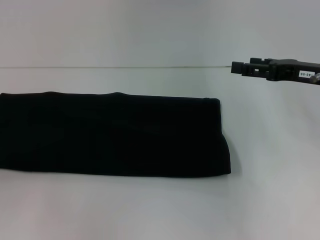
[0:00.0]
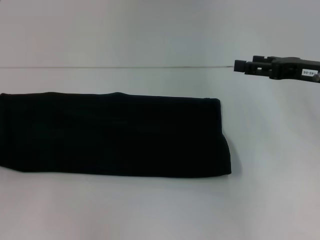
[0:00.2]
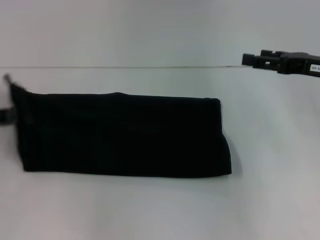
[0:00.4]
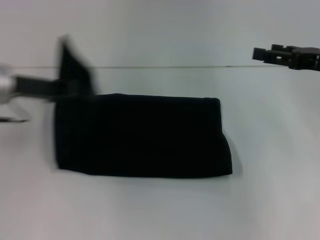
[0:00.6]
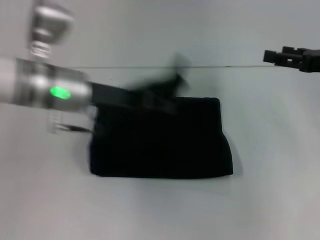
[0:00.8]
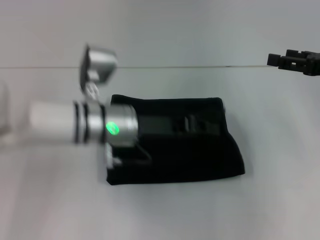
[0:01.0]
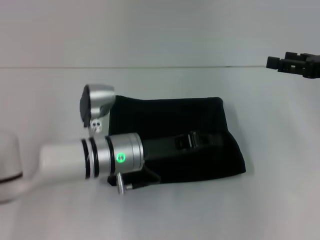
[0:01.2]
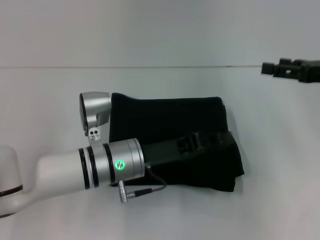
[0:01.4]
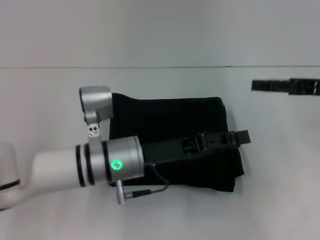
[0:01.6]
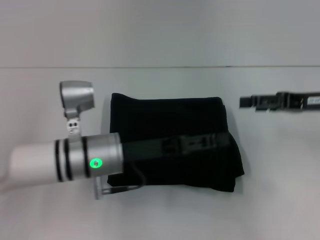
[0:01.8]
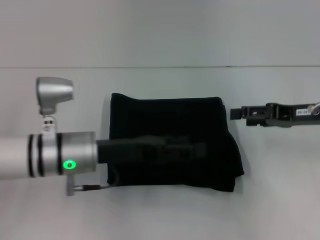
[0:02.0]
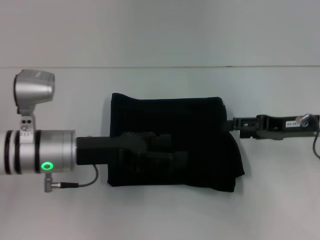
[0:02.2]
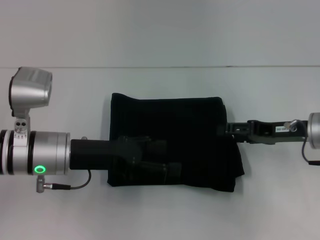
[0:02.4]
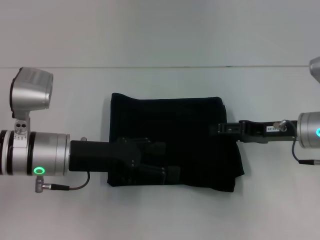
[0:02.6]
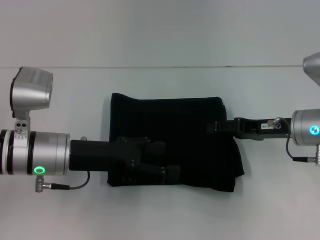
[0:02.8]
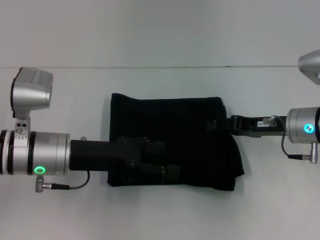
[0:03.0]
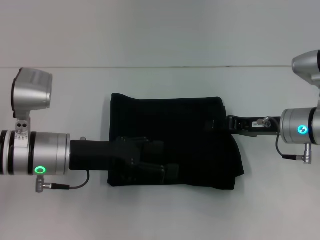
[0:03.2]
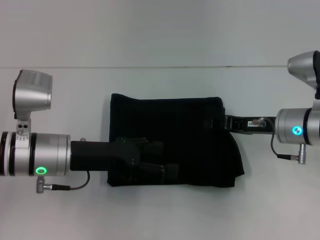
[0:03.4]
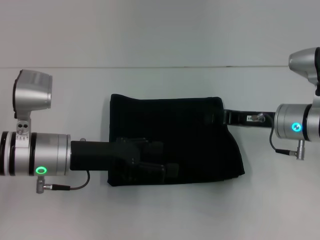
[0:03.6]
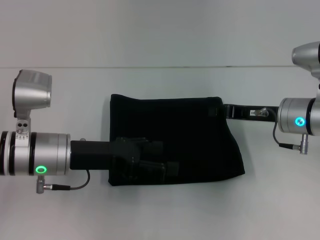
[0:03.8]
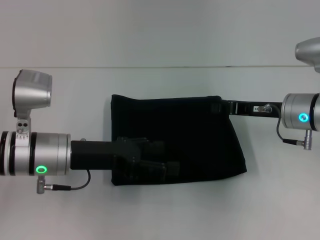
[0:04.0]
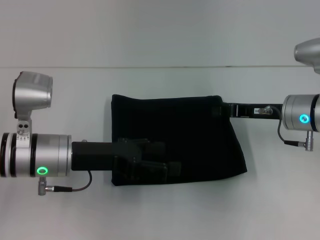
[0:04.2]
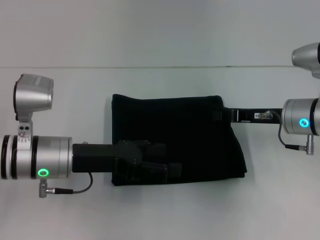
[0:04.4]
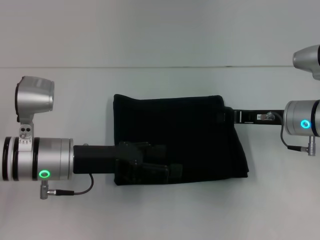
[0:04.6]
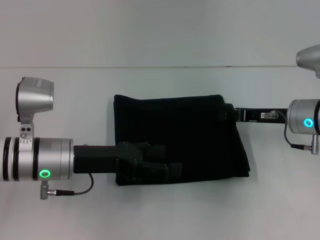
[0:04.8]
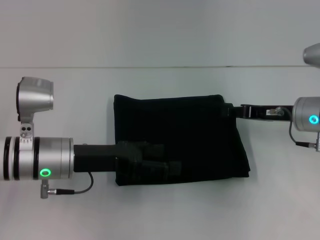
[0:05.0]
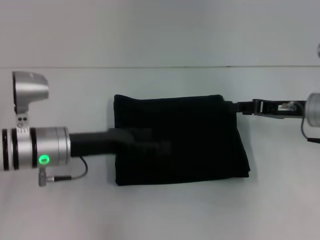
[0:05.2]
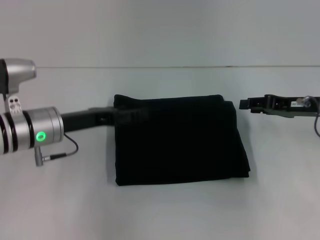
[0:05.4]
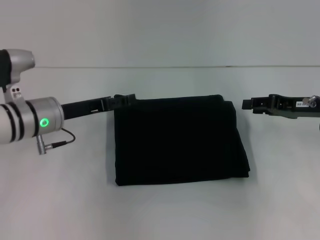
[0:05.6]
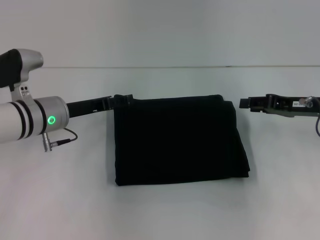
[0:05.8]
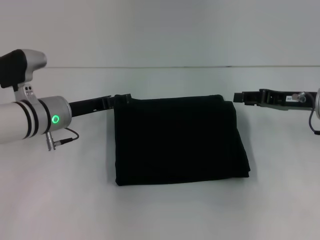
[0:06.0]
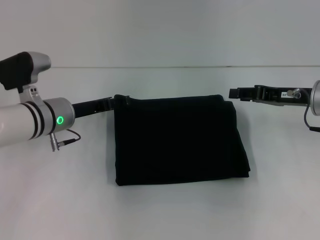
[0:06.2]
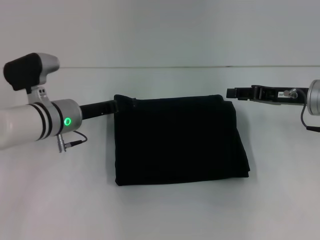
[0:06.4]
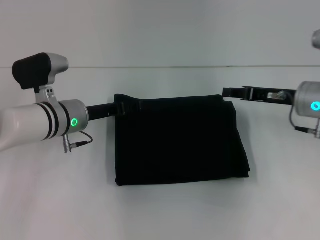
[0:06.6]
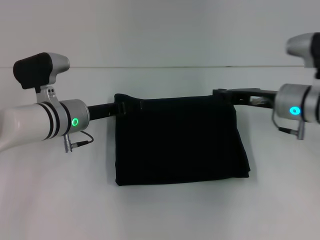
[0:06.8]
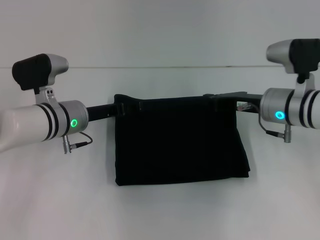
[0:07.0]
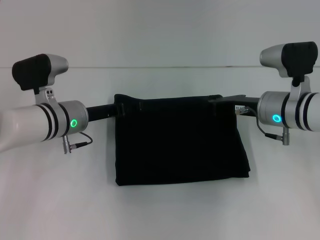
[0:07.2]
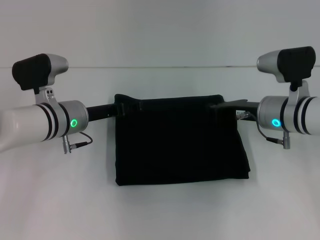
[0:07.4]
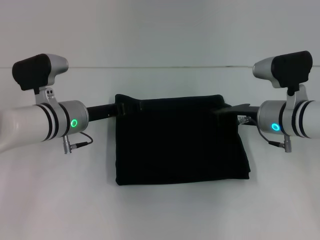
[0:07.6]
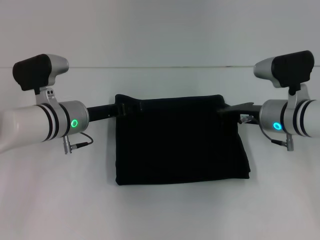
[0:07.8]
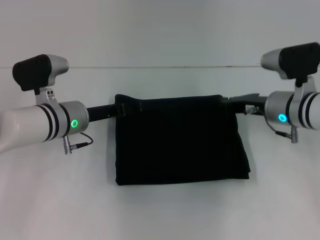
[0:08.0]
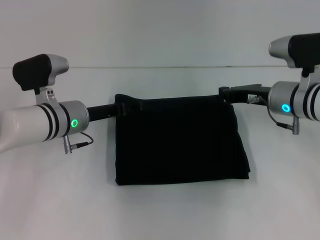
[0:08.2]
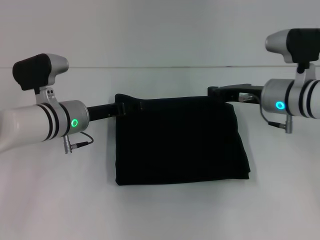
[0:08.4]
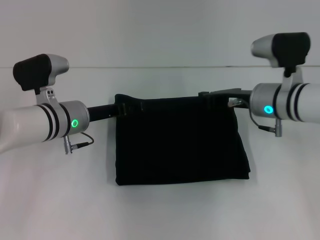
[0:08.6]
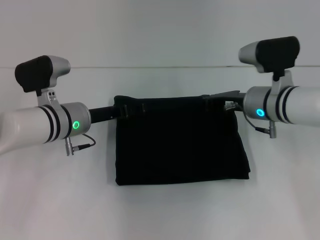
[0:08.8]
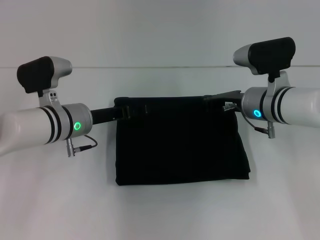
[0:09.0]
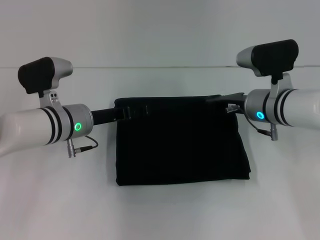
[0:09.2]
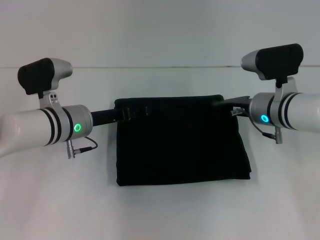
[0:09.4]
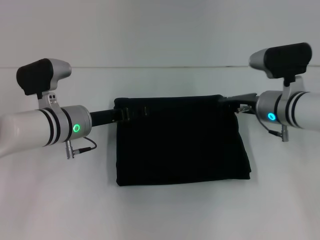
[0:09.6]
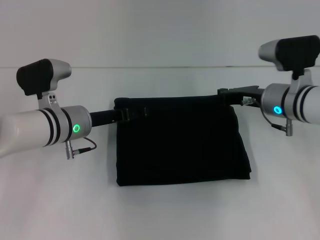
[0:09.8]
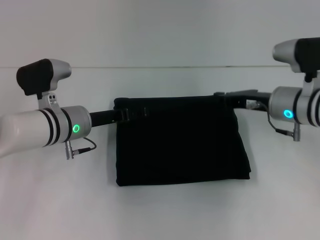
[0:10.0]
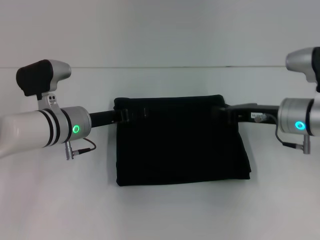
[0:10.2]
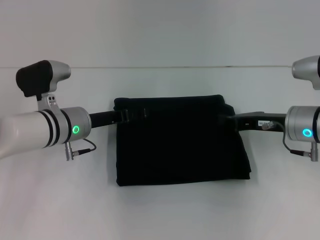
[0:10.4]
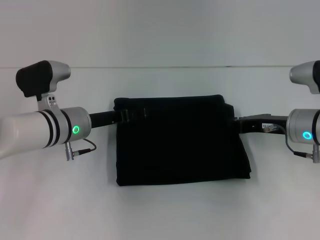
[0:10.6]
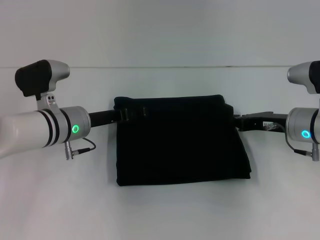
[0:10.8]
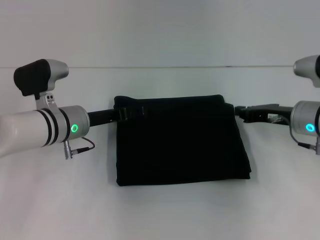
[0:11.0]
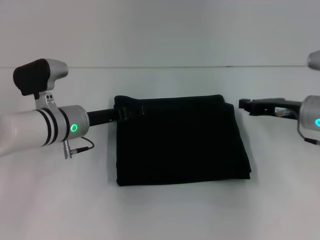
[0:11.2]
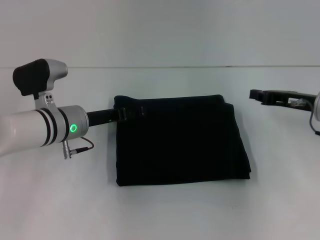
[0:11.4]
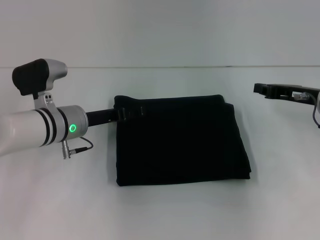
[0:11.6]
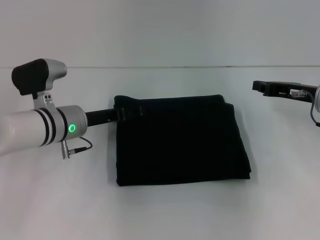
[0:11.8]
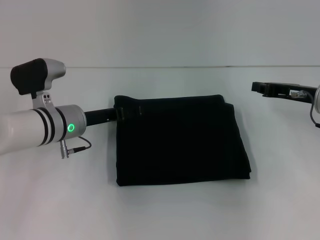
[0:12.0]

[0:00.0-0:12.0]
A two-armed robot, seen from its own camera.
0:00.0 to 0:01.6: The left gripper travels to the right by roughly 30 cm.
0:01.6 to 0:03.0: The left gripper moves to the left, approximately 10 cm, and opens its fingers. The right gripper is displaced to the left and downward by roughly 10 cm.
0:03.0 to 0:04.4: The right gripper closes its fingers.
0:04.4 to 0:06.0: The right gripper ends up roughly 5 cm from where it was, and opens its fingers; the left gripper shifts some 10 cm forward.
0:06.0 to 0:07.6: The right gripper heads to the left, covering approximately 10 cm, and closes up.
0:07.6 to 0:09.0: There are only small adjustments of the grippers.
0:09.0 to 0:10.4: The right gripper shifts some 5 cm to the right.
0:10.4 to 0:12.0: The right gripper moves some 5 cm.

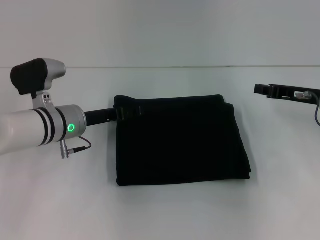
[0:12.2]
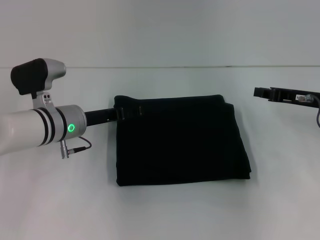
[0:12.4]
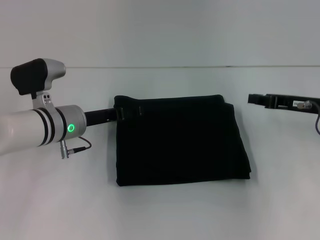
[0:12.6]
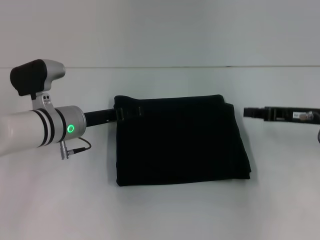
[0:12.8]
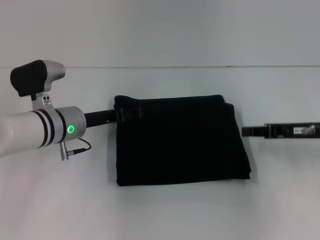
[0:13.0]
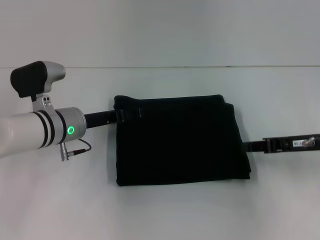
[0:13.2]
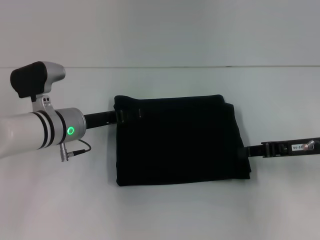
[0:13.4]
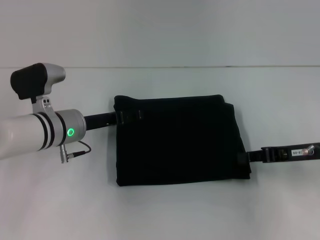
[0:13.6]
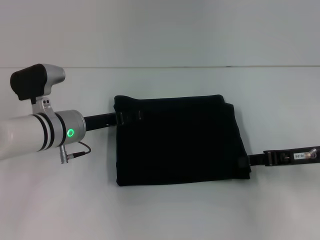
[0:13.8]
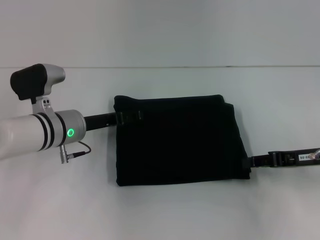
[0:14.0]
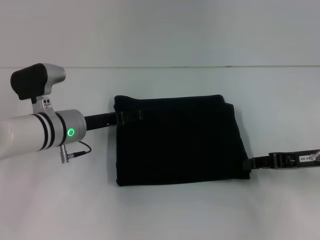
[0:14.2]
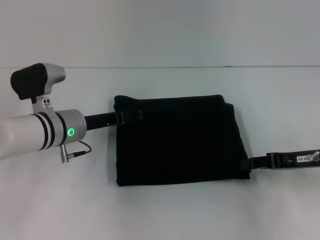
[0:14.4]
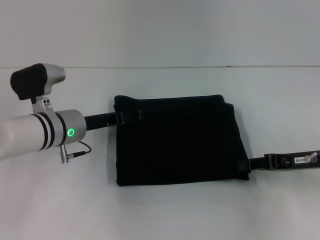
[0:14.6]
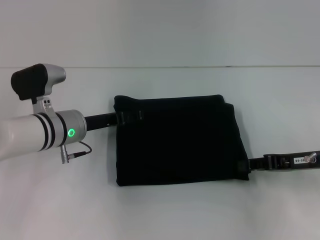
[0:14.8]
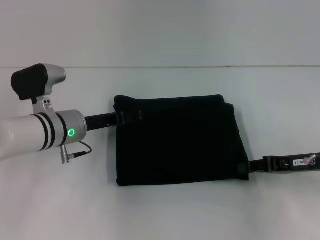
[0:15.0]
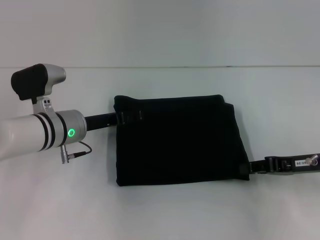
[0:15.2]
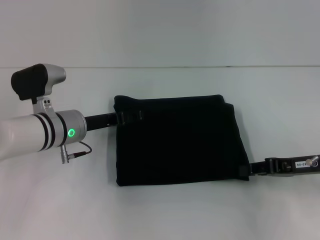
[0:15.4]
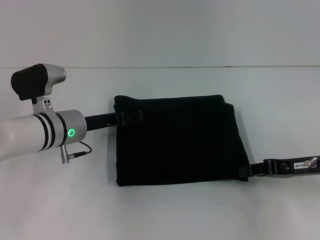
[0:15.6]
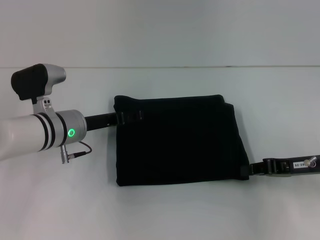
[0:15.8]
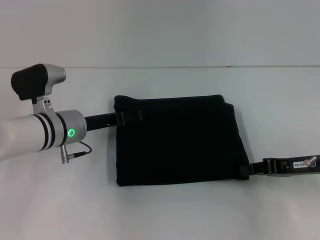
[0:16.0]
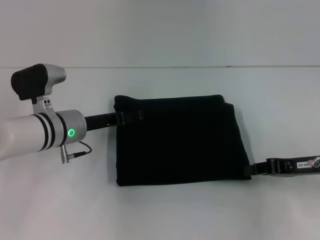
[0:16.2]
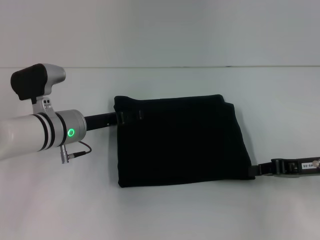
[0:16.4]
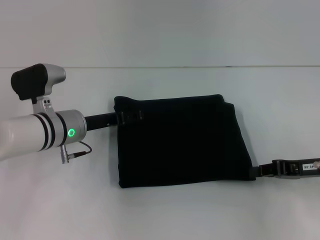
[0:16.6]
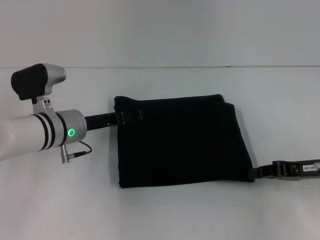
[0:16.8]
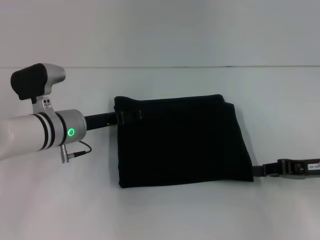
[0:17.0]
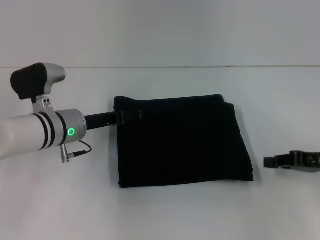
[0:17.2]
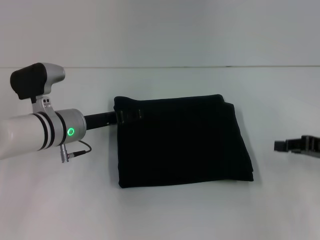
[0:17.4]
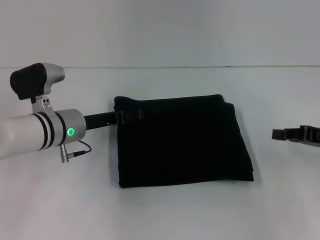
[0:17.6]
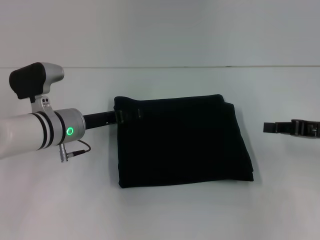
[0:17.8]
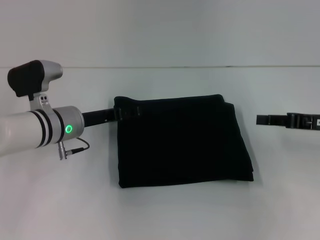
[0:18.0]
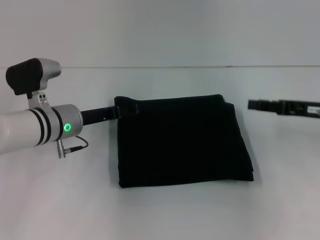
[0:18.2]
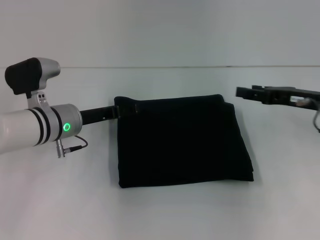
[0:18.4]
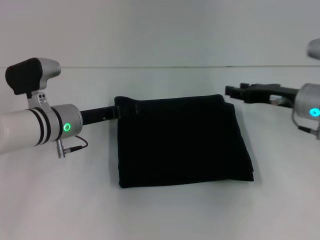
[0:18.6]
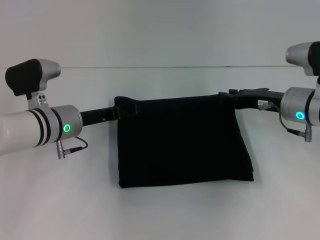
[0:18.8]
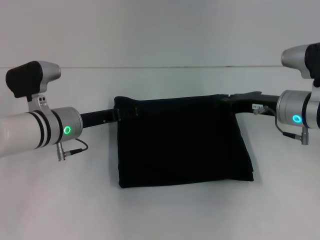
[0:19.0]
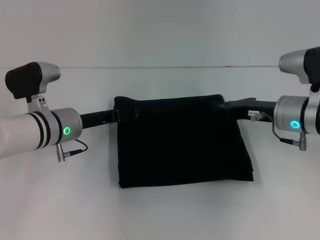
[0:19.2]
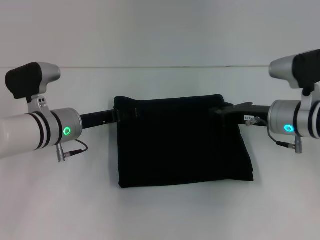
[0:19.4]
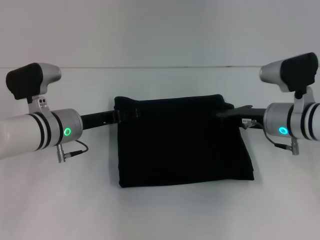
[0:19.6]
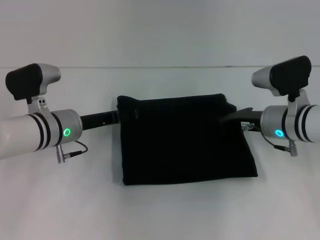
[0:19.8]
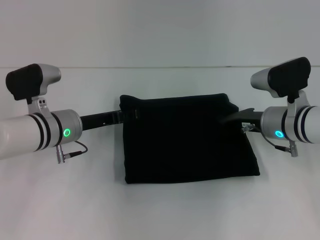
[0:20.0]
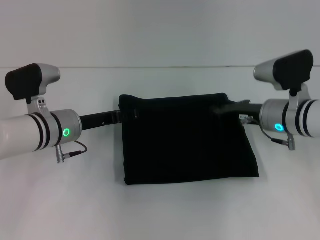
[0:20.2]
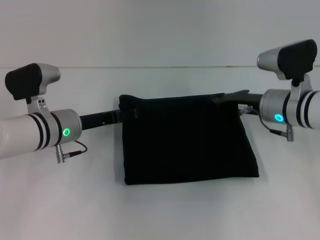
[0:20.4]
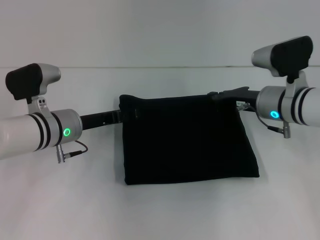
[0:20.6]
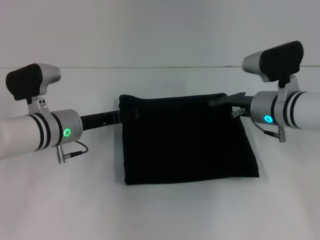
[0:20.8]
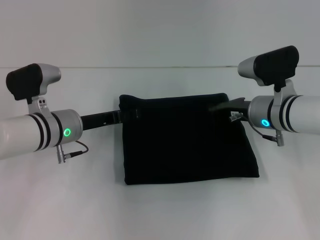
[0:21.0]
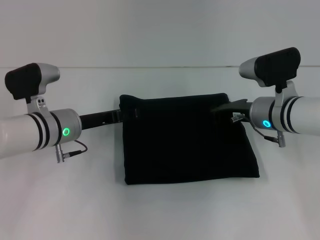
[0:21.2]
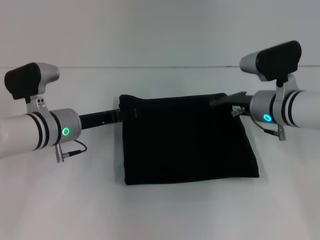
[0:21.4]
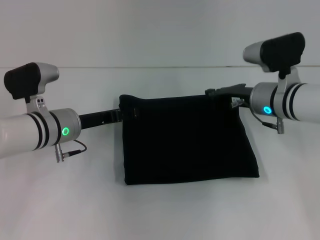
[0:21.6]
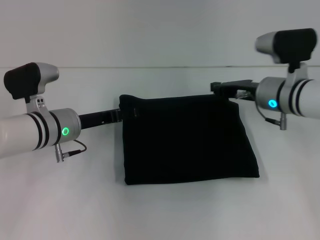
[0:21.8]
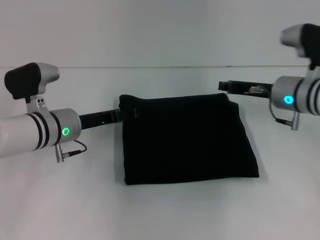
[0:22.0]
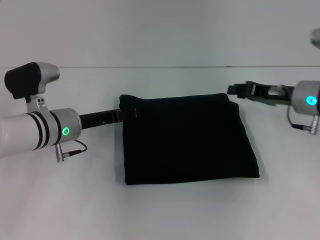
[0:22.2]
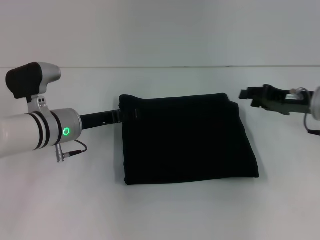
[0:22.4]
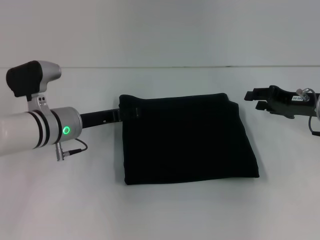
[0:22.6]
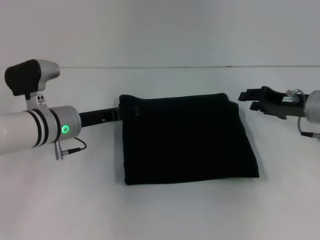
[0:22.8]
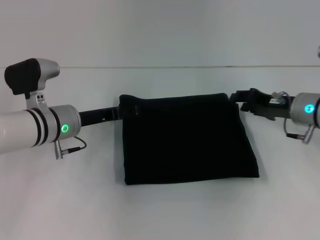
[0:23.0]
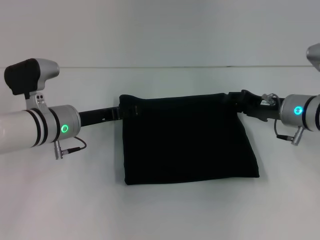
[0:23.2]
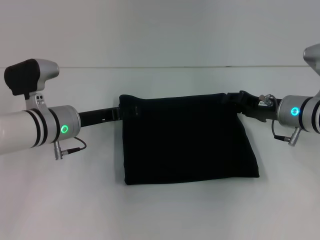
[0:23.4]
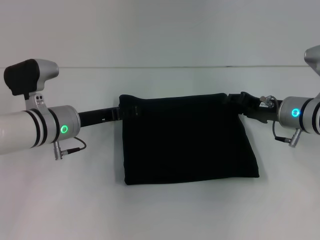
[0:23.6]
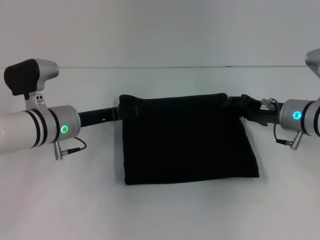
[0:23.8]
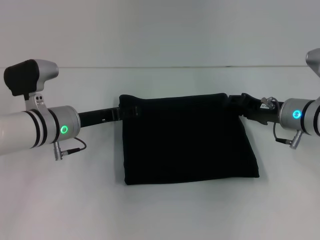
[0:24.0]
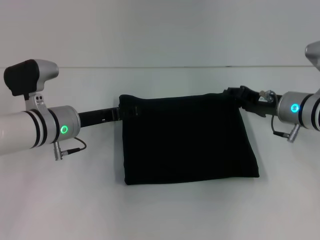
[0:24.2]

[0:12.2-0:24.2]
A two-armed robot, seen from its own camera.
0:12.2 to 0:13.8: The right gripper moves backward, approximately 5 cm.
0:13.8 to 0:15.2: There are only small adjustments of the grippers.
0:15.2 to 0:16.6: Both grippers stay put.
0:16.6 to 0:18.2: The right gripper moves roughly 5 cm.
0:18.2 to 0:19.8: The right gripper heads to the left and downward, covering about 10 cm, and opens, then closes again.
0:19.8 to 0:21.2: The grippers stay close to where they were, moving slightly.
0:21.2 to 0:22.6: The right gripper is displaced to the right by roughly 10 cm, and opens.
0:22.6 to 0:24.2: The right gripper travels to the left by roughly 5 cm.
